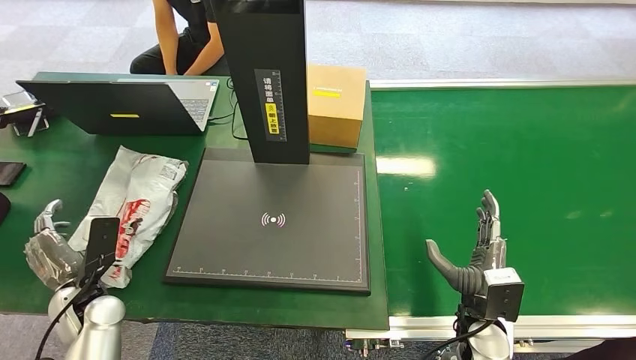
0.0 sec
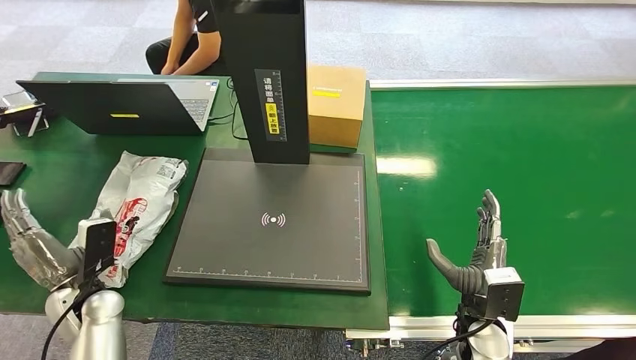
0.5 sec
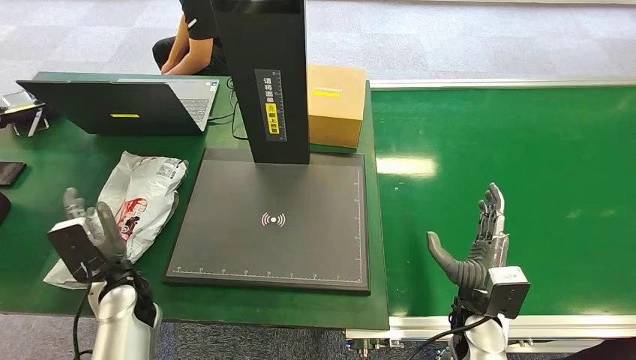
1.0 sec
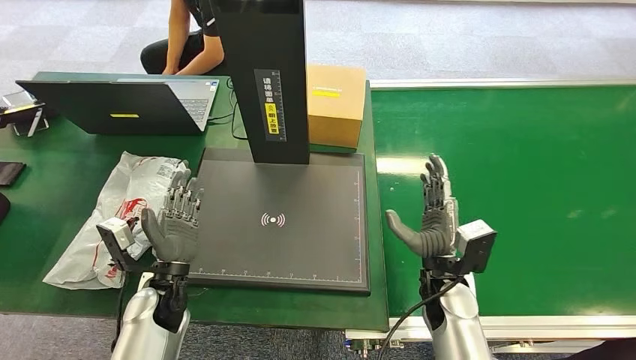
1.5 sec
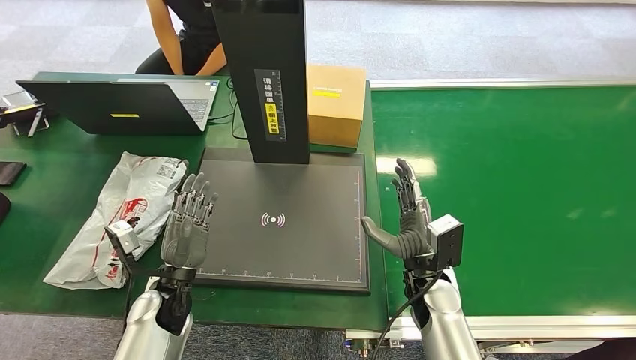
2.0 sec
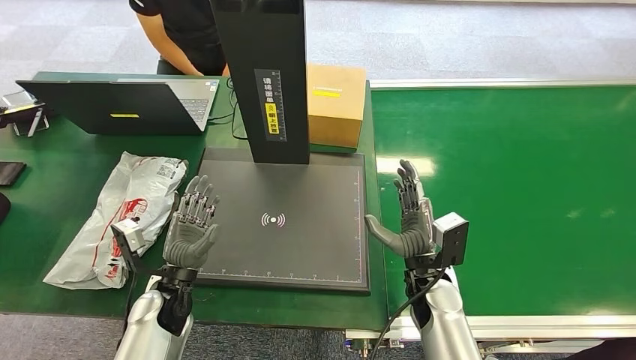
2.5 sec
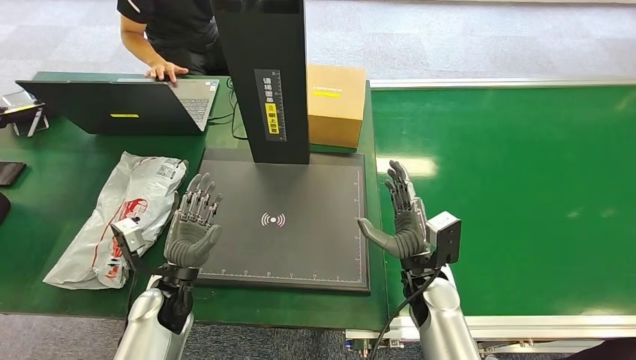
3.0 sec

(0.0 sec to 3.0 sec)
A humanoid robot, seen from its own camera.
Step, 0.0 sec - 3.0 sec: Place the package into the parcel locker.
0.0 sec - 1.5 sec: The left hand heads to the right, covering approximately 15 cm, while the right hand goes about 10 cm forward and to the left.
1.5 sec - 3.0 sec: The hands stay close to where they were, moving slightly.

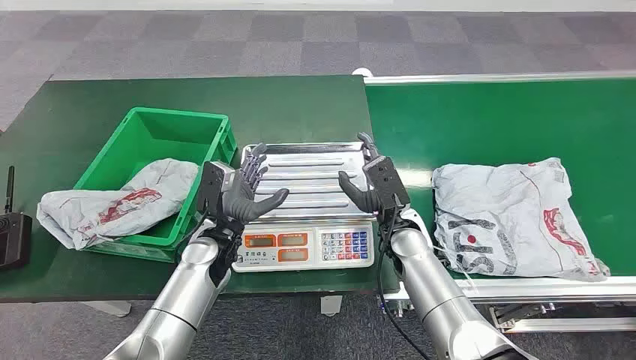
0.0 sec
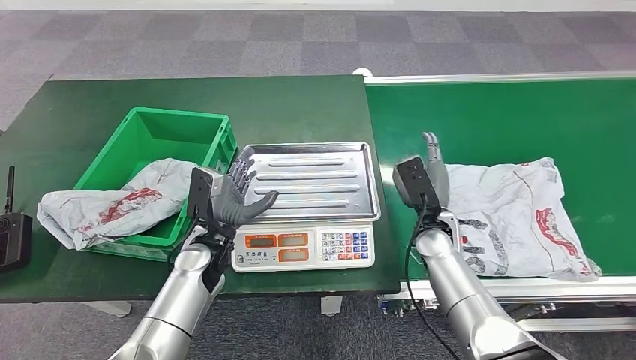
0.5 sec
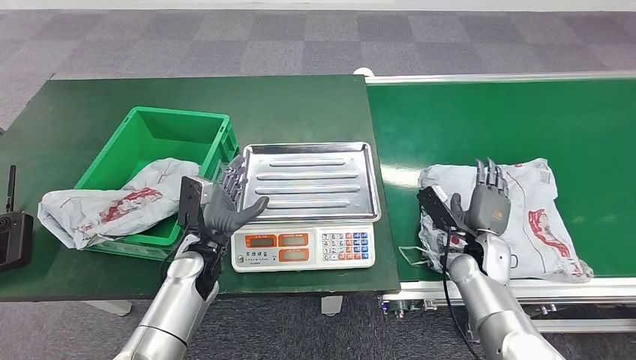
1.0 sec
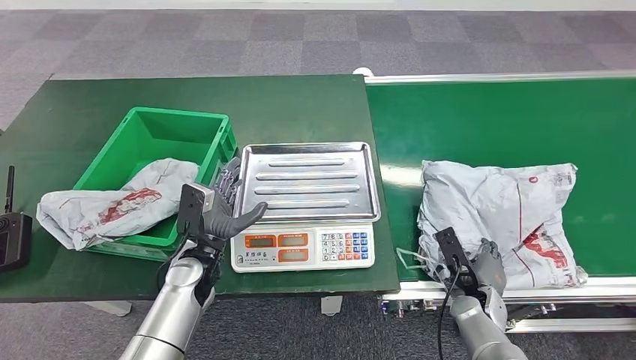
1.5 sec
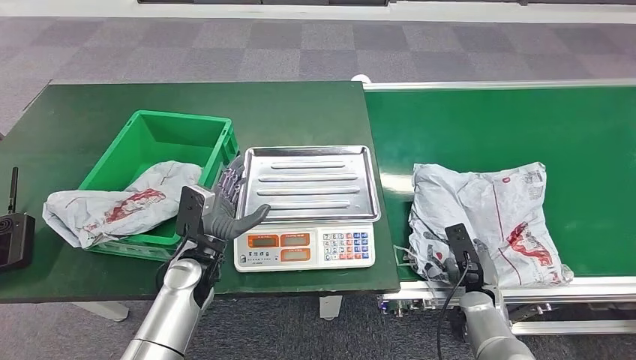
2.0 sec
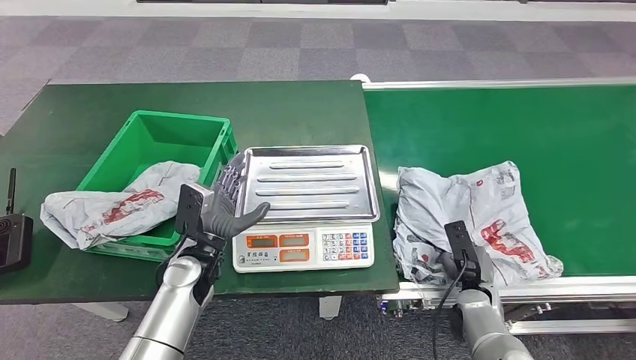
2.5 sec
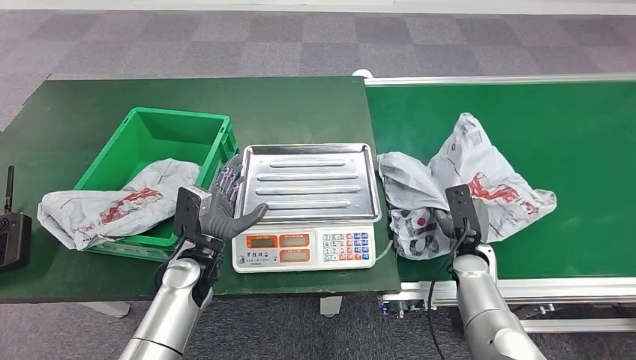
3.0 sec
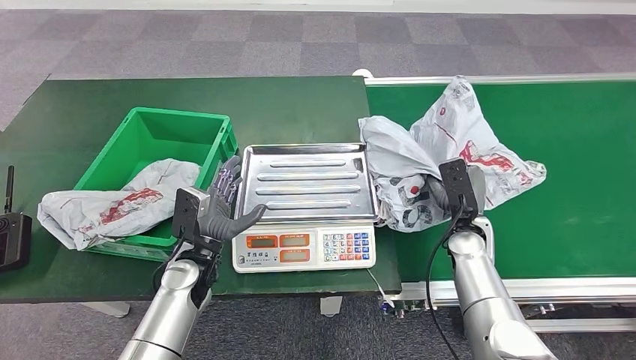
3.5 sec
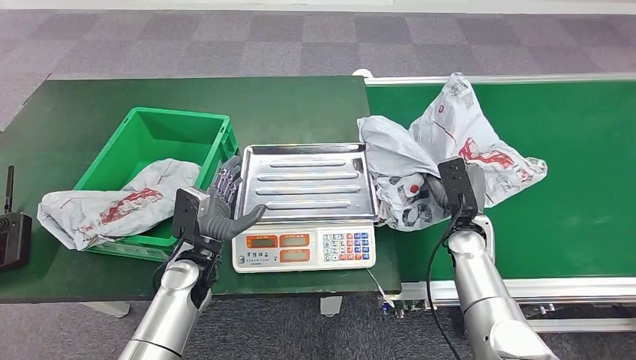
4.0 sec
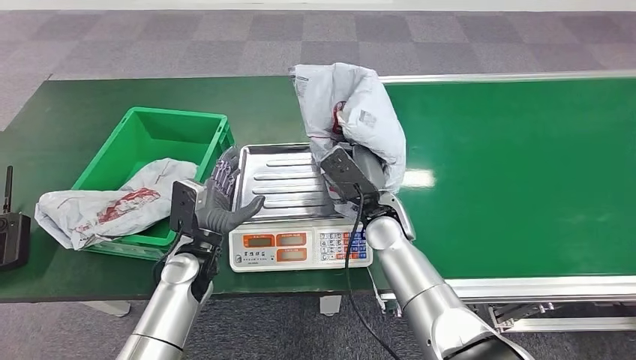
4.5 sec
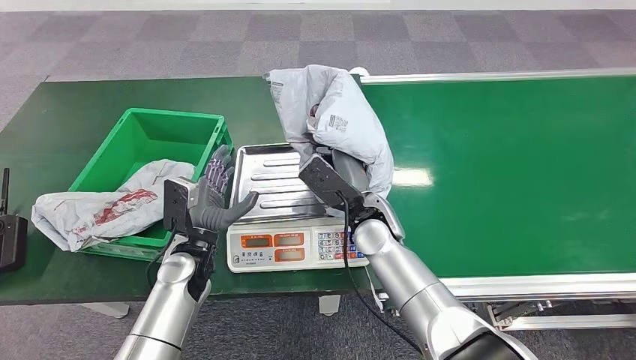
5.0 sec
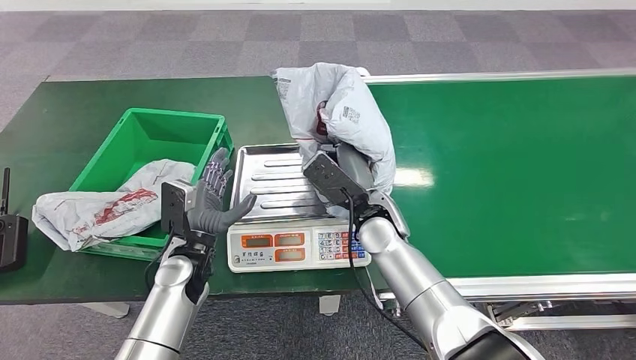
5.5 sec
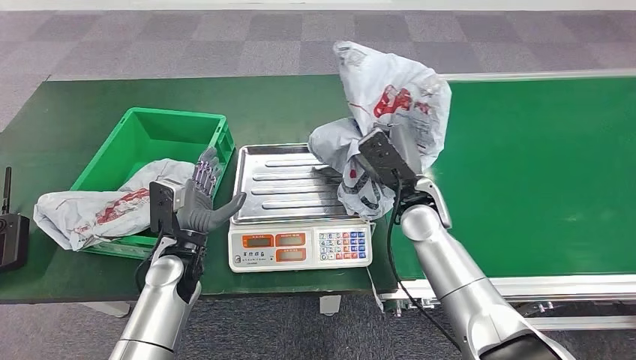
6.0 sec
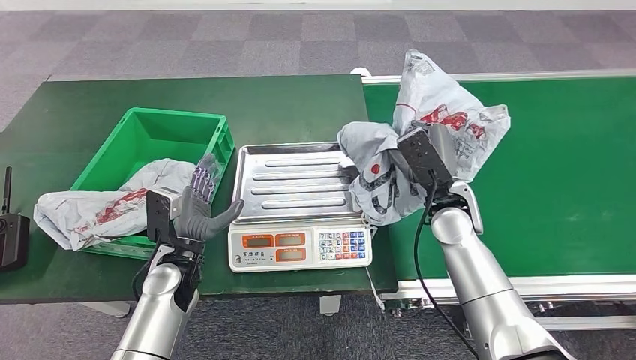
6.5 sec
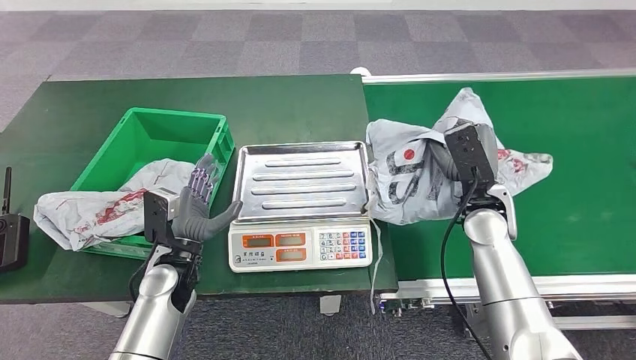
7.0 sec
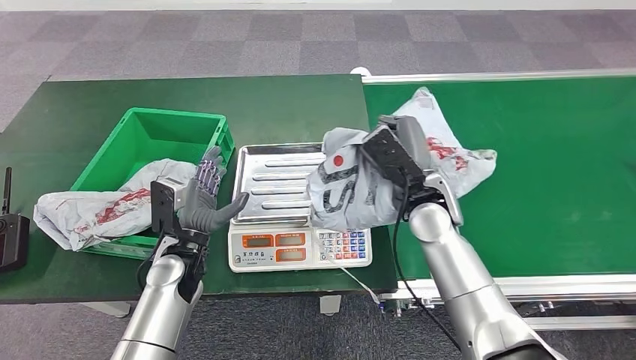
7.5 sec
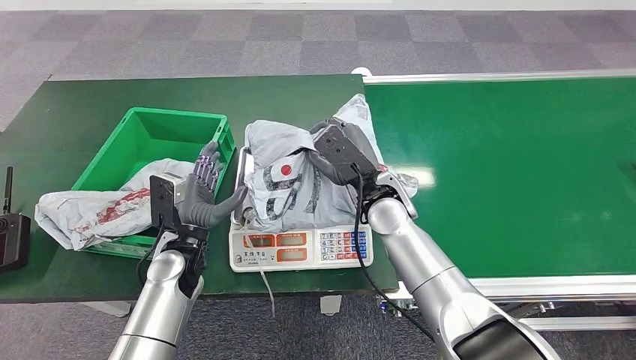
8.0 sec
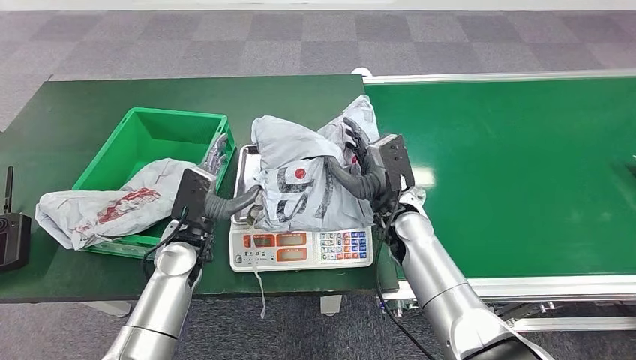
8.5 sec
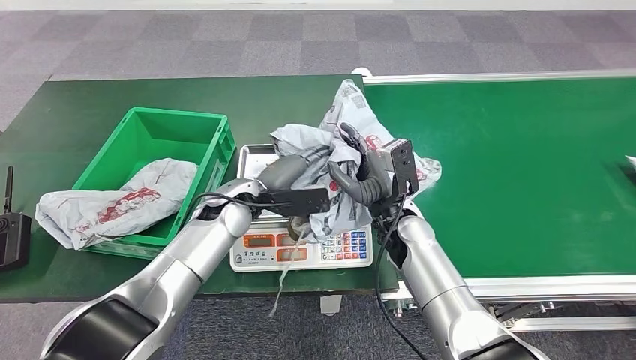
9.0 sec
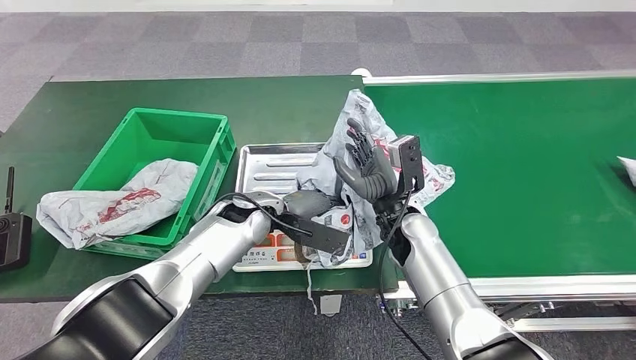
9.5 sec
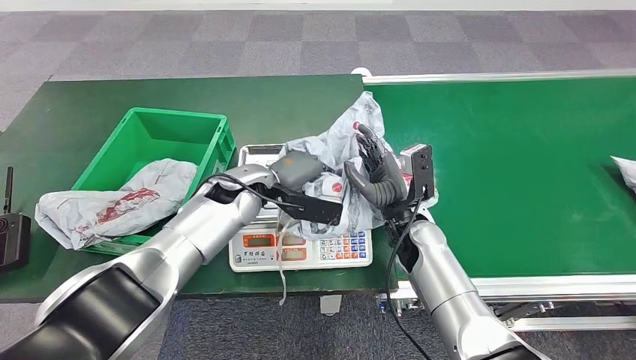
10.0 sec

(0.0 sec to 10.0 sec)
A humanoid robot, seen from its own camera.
Step, 0.0 sec - 3.5 sec: Pick up the package from the conveyor belt.
Step, 4.5 sec - 8.0 sec: Place the package onto the inbound machine.
6.0 sec - 8.0 sec: The right hand goes some 5 cm to the left.

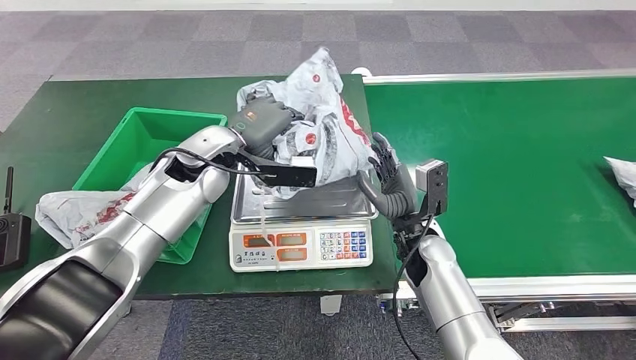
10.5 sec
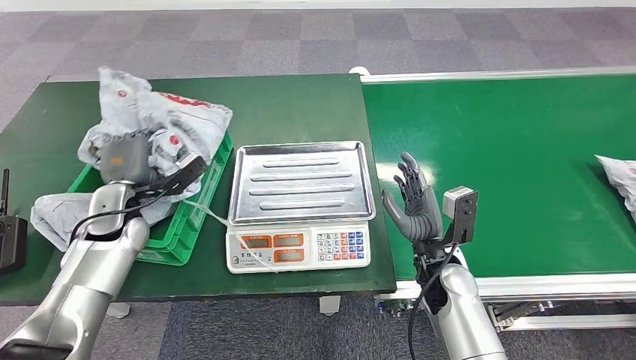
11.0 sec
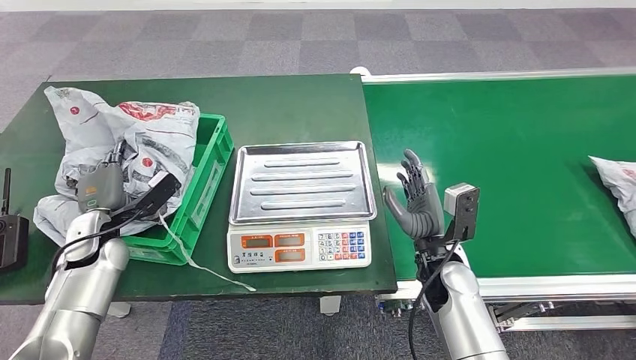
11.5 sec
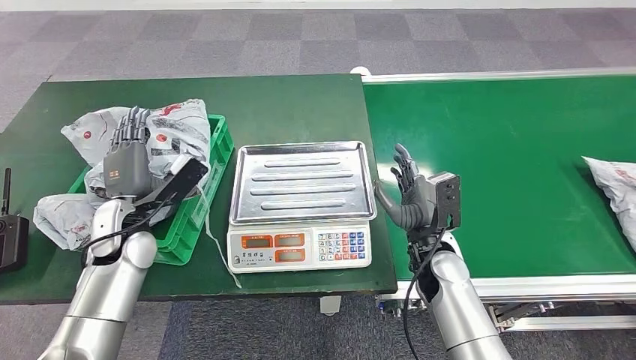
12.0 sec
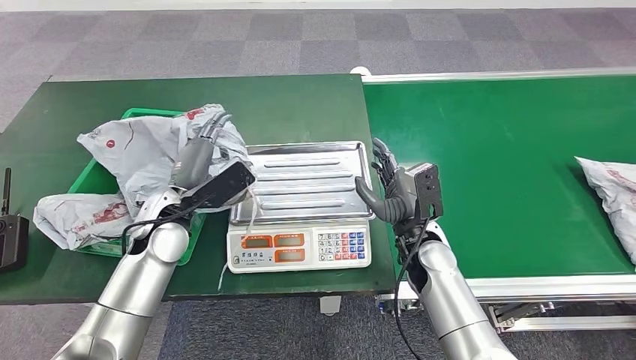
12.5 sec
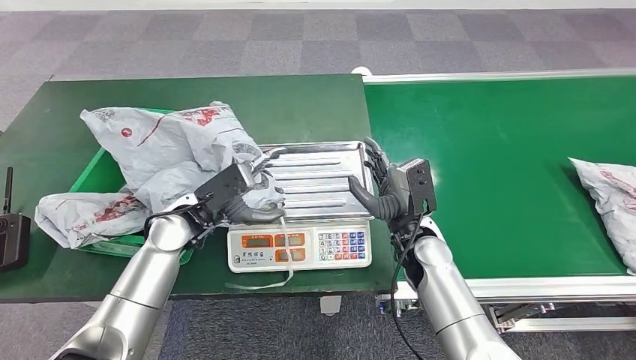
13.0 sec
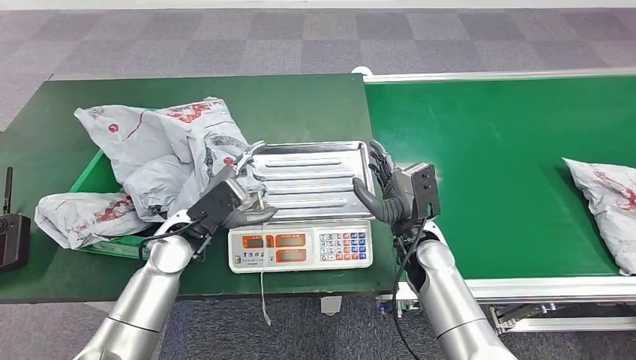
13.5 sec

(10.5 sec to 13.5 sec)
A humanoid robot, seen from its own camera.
Step, 11.0 sec - 13.5 sec: Place the package into the parcel locker.

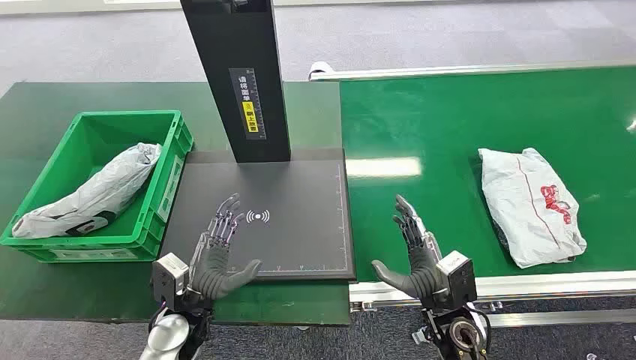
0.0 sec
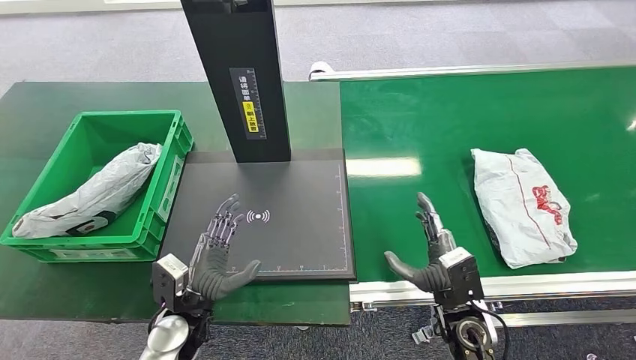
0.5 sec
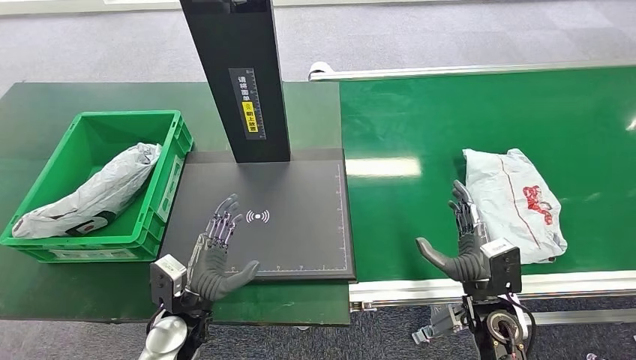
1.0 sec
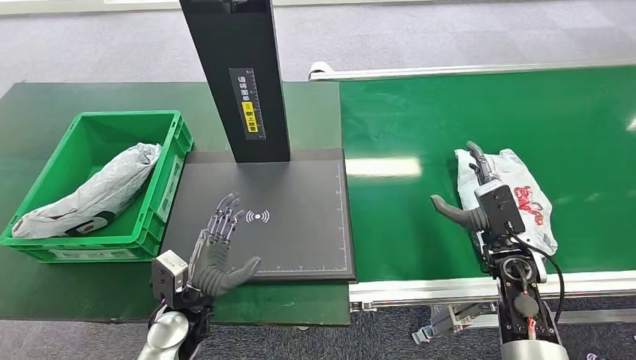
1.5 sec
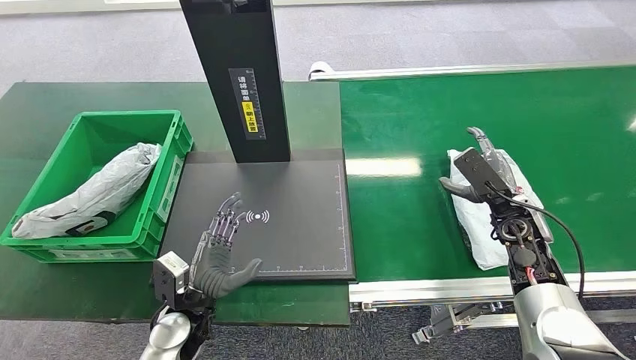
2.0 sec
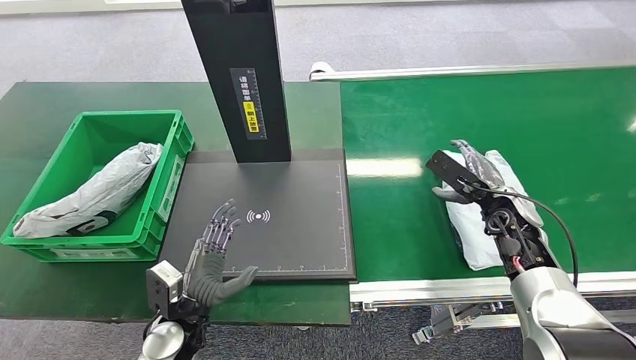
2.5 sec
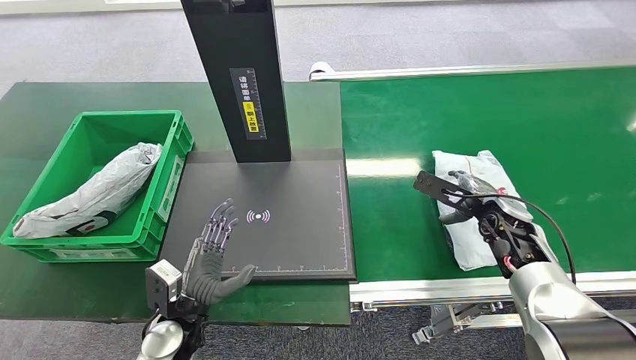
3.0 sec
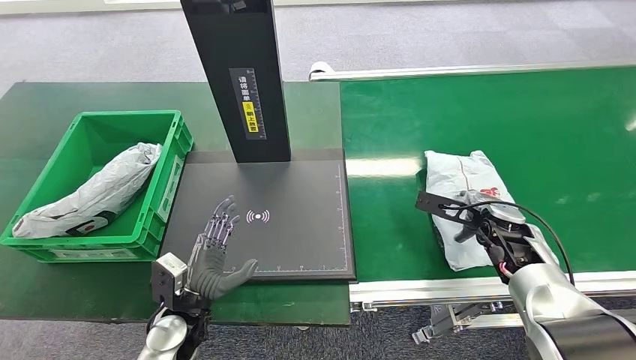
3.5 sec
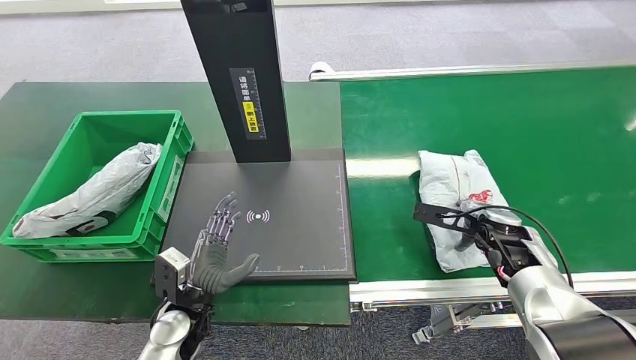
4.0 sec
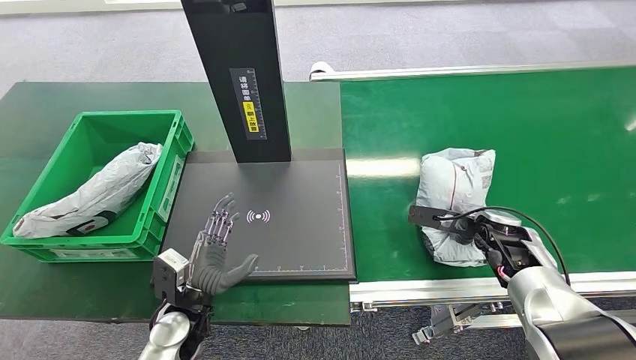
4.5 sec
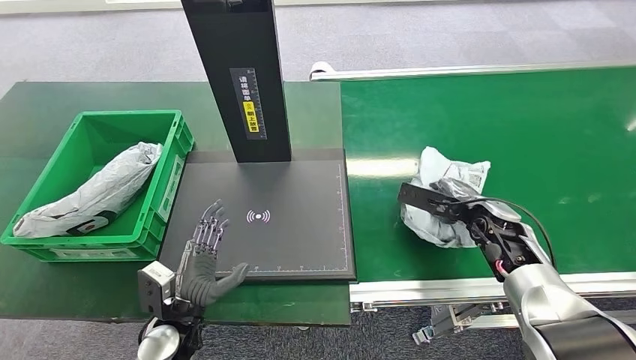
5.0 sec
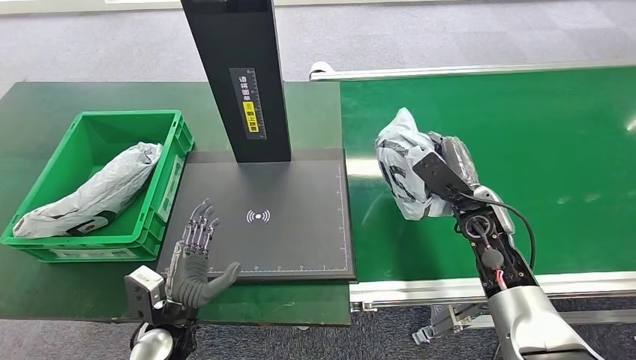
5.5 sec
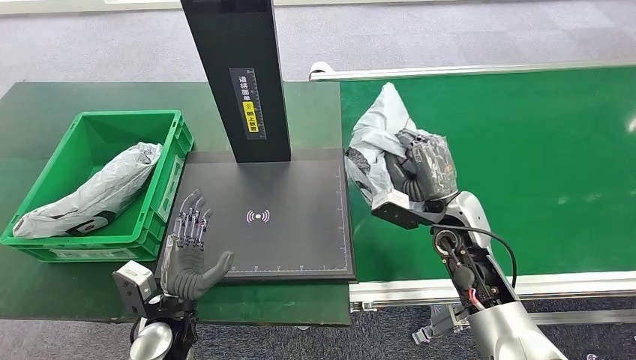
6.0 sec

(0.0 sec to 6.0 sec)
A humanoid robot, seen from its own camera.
Step, 0.0 sec - 5.5 sec: Pick up the package from the conveyor belt.
4.0 sec - 6.0 sec: The right hand heads to the left and upward, covering approximately 15 cm.
